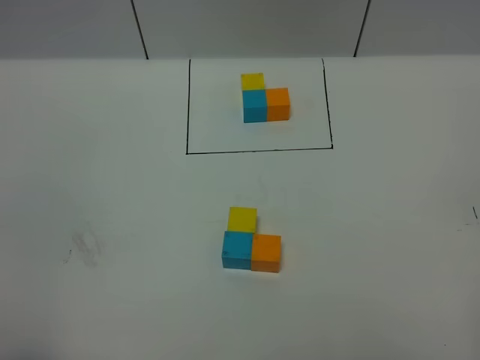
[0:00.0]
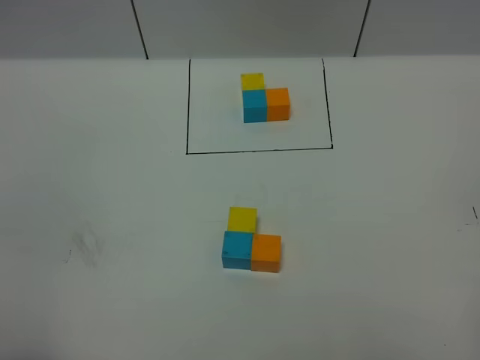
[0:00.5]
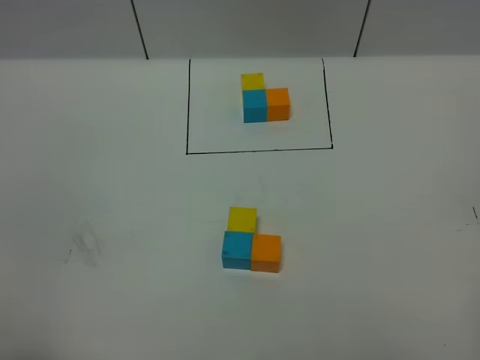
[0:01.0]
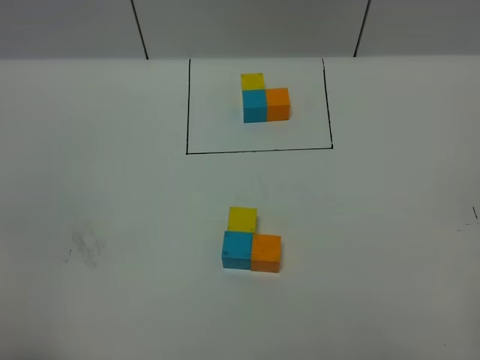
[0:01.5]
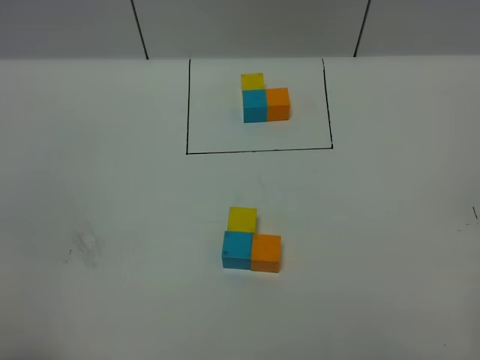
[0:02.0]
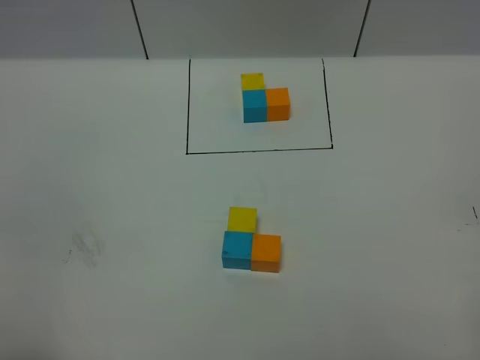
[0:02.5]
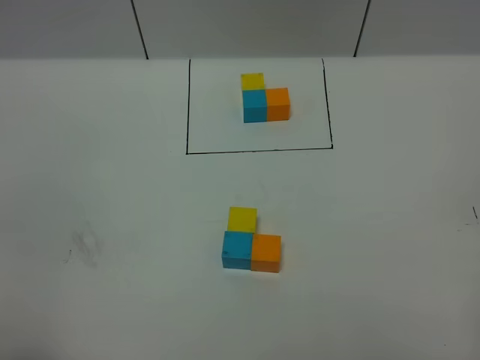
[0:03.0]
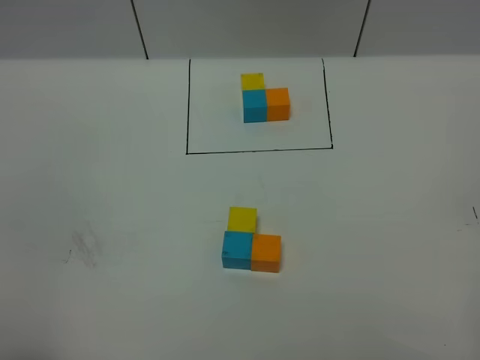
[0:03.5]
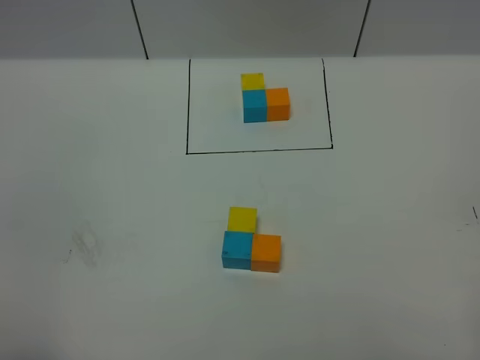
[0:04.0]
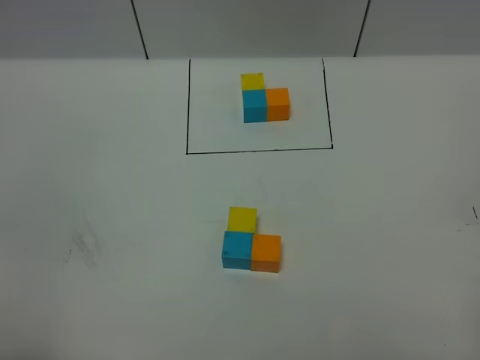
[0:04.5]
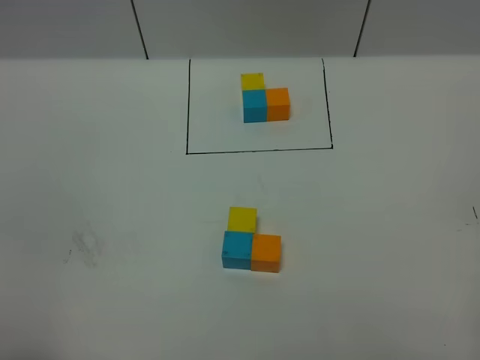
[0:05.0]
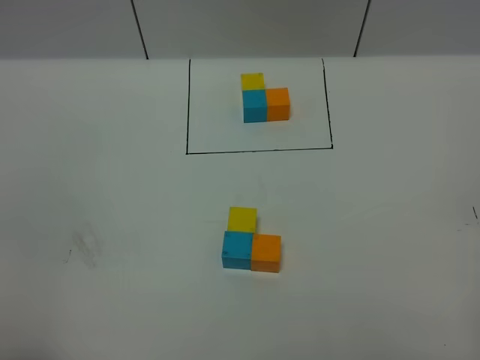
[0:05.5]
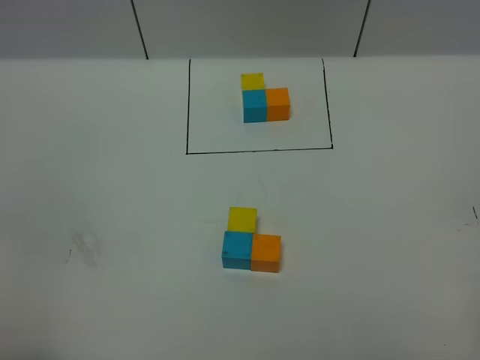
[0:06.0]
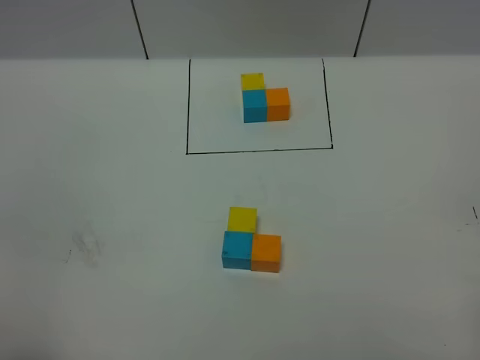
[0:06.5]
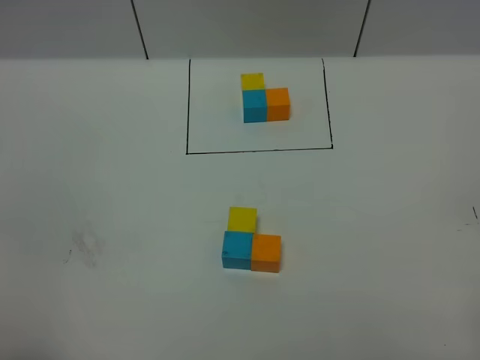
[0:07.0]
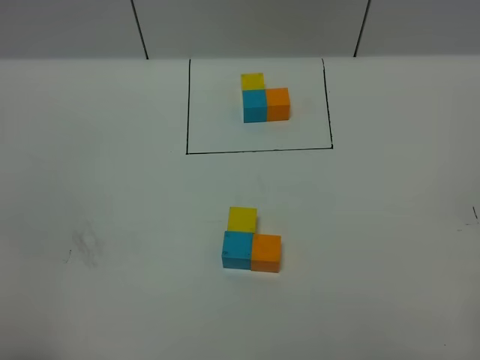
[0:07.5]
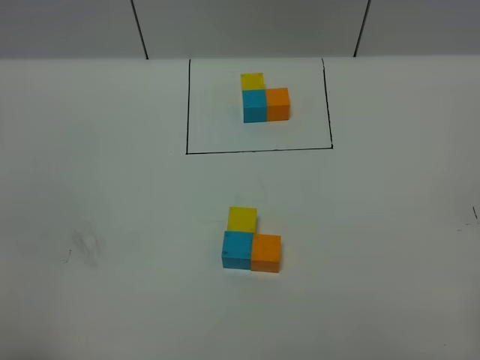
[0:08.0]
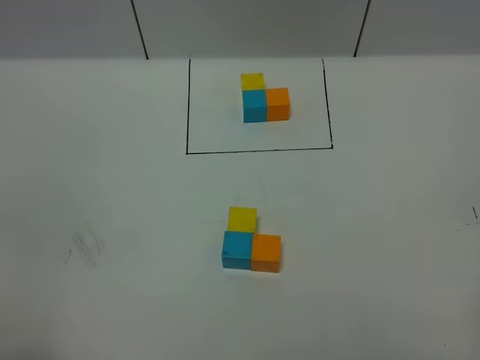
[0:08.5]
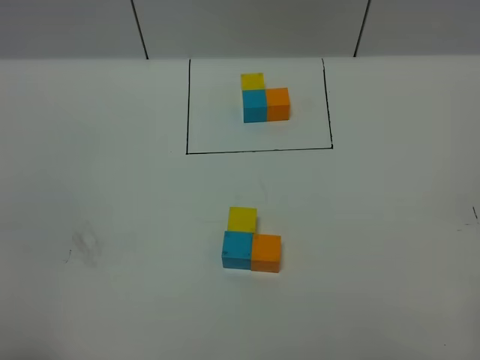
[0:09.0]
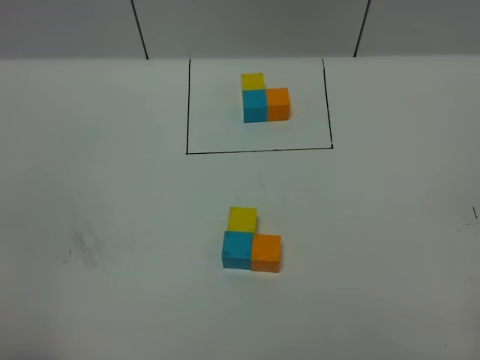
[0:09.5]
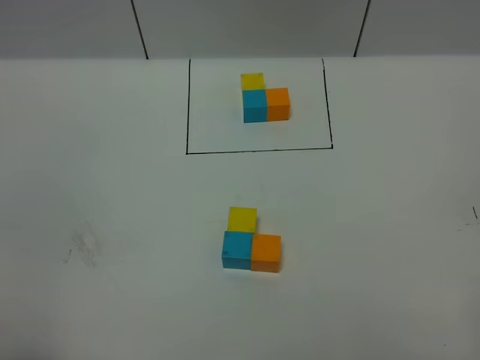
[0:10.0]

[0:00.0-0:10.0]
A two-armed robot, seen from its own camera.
Task of the whole recording: According to the building block template in front, assemble the scattered blocks together.
0:00.0 to 0:02.0: Both grippers stay about where they are.
0:02.0 to 0:10.0: The two grippers keep their place.
